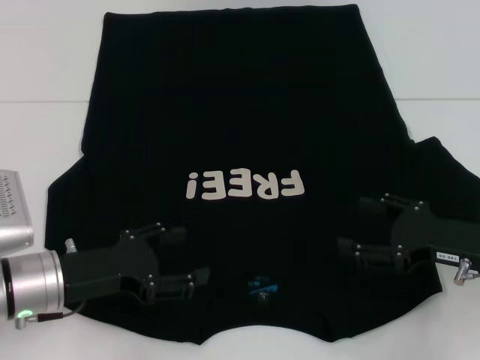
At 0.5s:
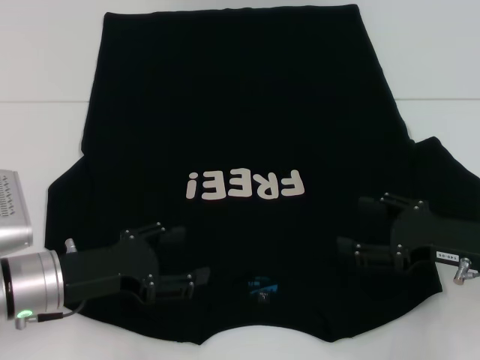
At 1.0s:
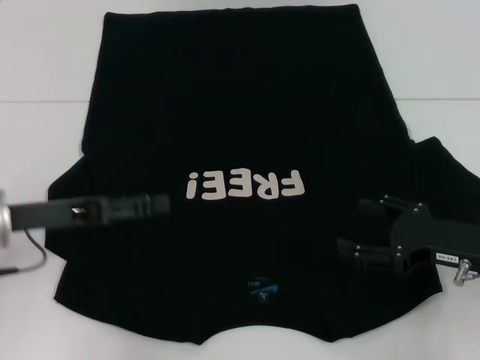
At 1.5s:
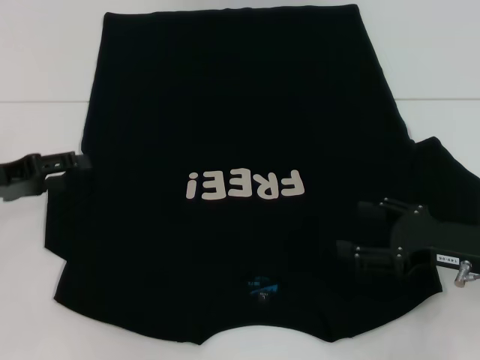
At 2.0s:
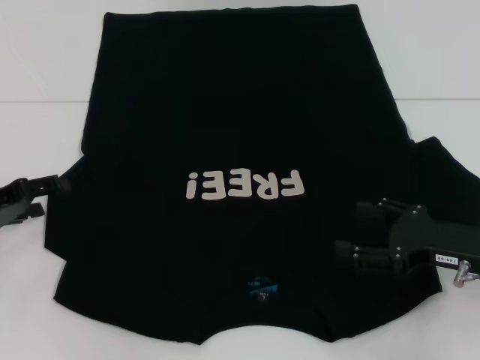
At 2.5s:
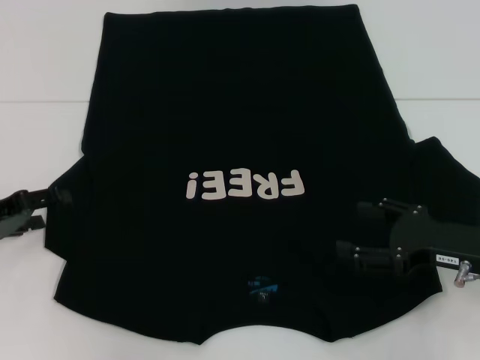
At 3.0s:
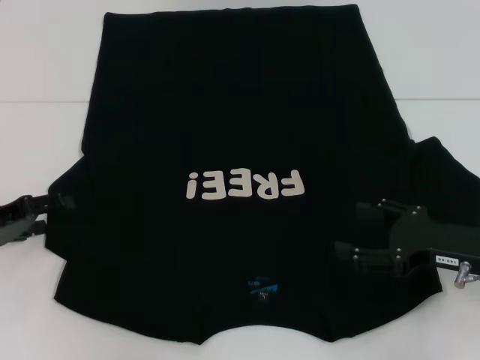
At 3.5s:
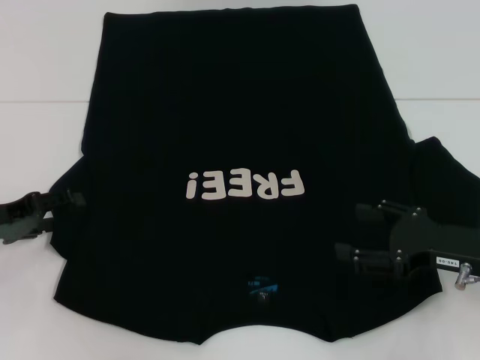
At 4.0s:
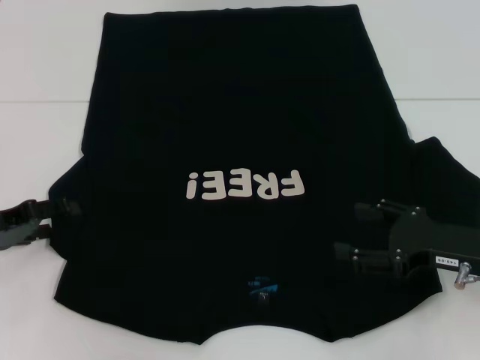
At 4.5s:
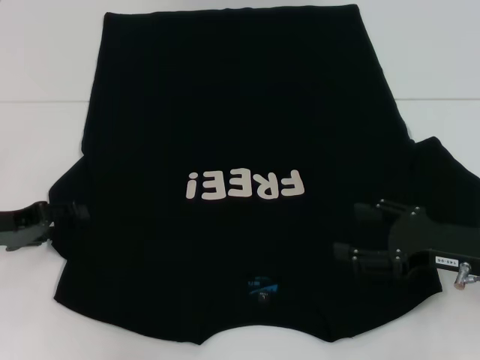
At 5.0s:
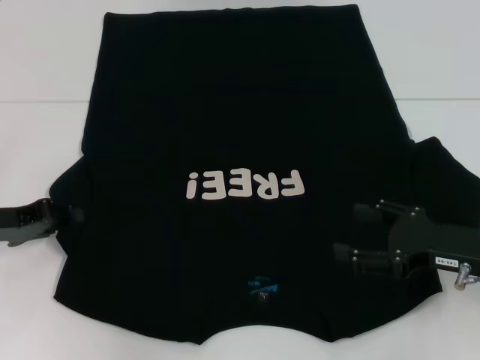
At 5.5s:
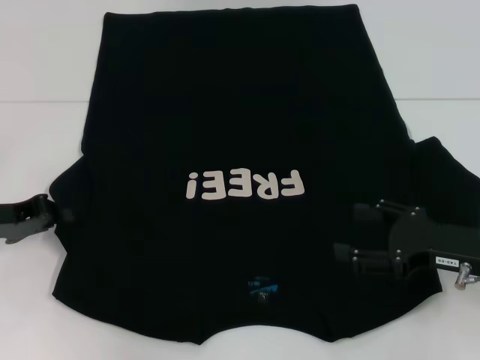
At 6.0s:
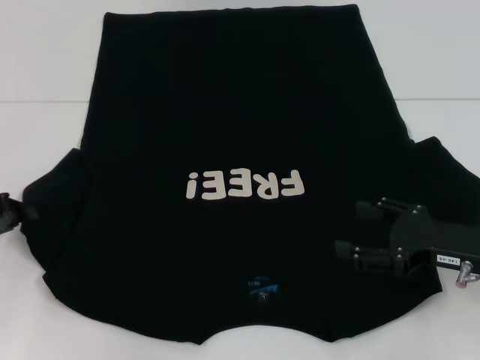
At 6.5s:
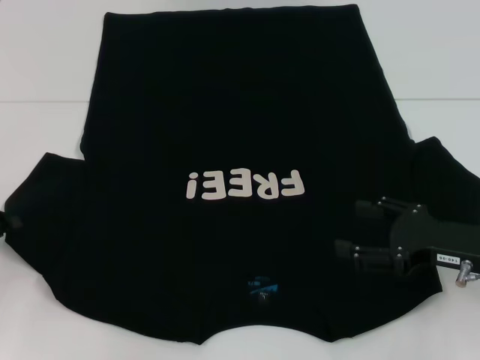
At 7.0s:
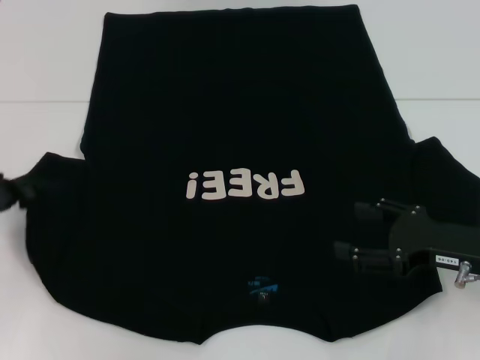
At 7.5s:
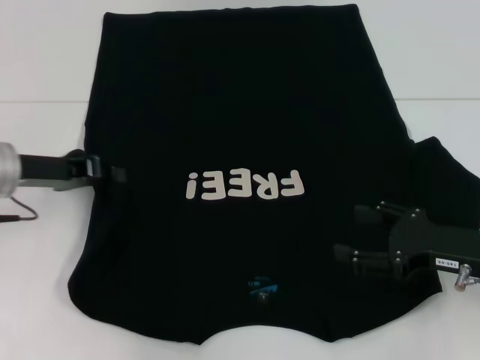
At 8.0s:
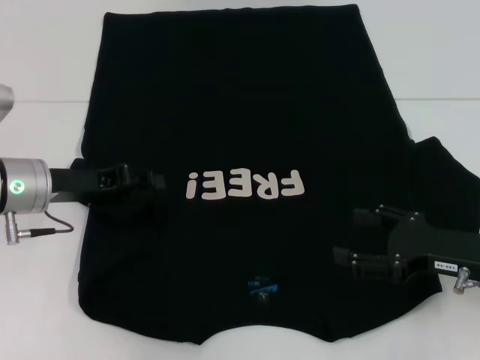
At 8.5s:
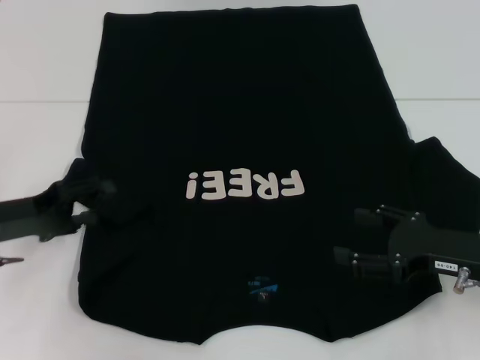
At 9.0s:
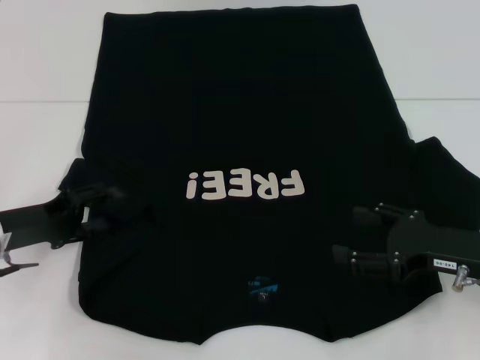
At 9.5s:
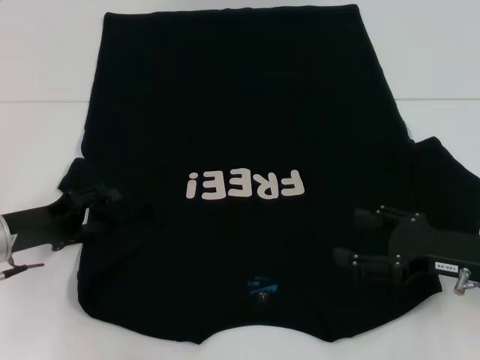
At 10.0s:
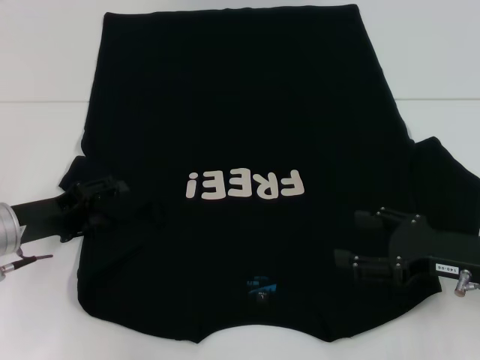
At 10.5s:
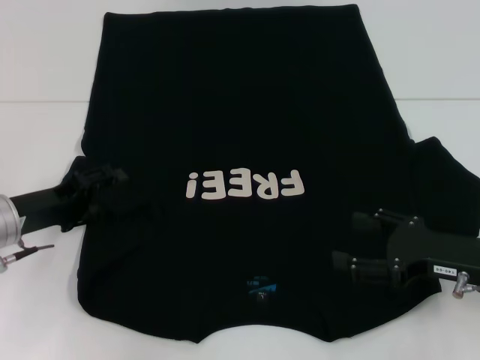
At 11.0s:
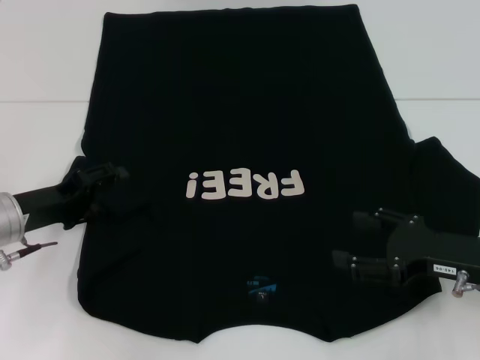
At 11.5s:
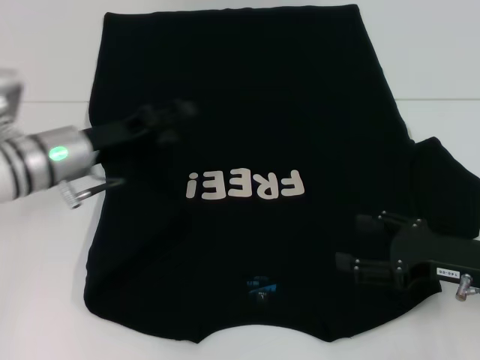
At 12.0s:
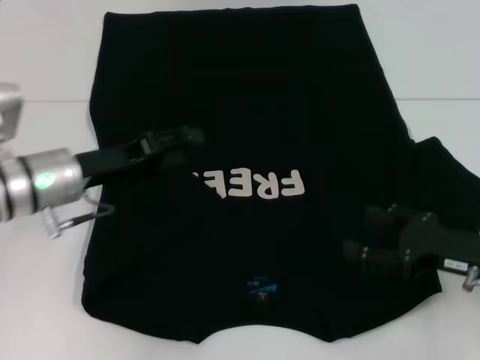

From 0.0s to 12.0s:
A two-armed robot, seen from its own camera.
Step, from 0.0s to 7.5s: Fold the bottom left sleeve with your left hand.
From 0.0s to 2.0s: The left gripper moves to the left and forward, about 15 cm.
From 2.0s to 4.0s: There are only small adjustments of the grippers.
From 4.0s to 6.0s: The left gripper closes its fingers.
From 6.0s to 8.0s: The left gripper goes some 10 cm to the right.
From 8.0s to 10.0s: The left gripper travels downward by about 5 cm, and opens its fingers.
From 10.0s to 12.0s: The left gripper moves to the right, some 5 cm.

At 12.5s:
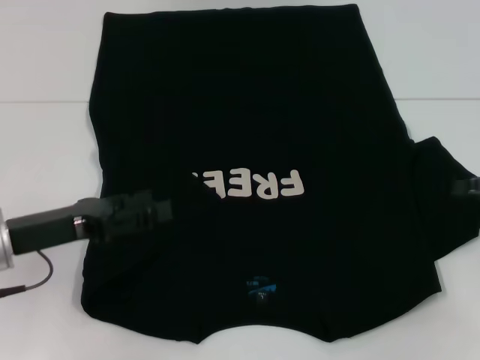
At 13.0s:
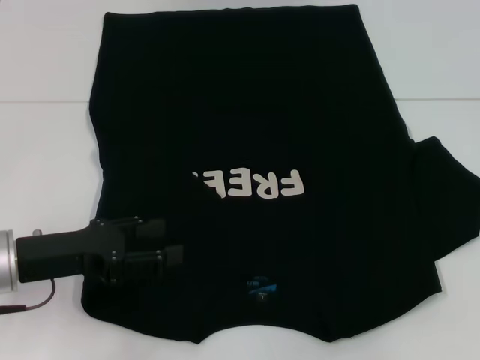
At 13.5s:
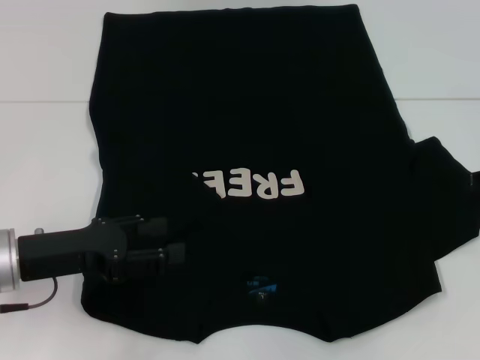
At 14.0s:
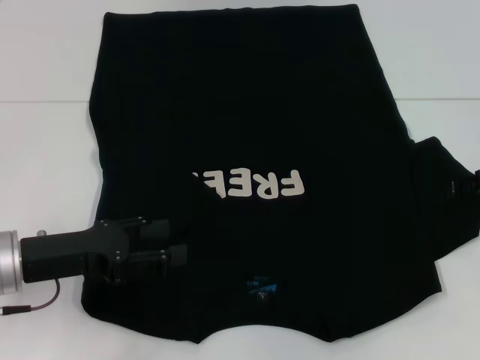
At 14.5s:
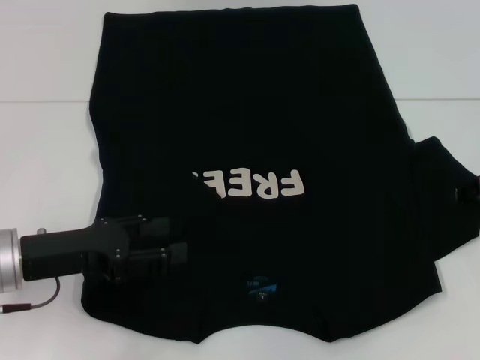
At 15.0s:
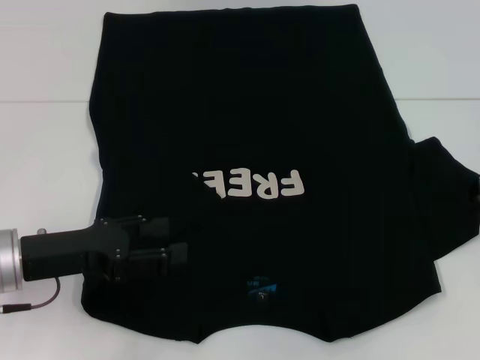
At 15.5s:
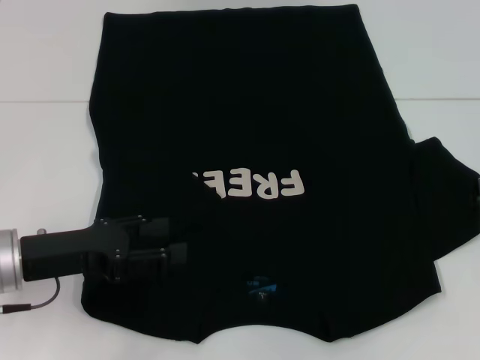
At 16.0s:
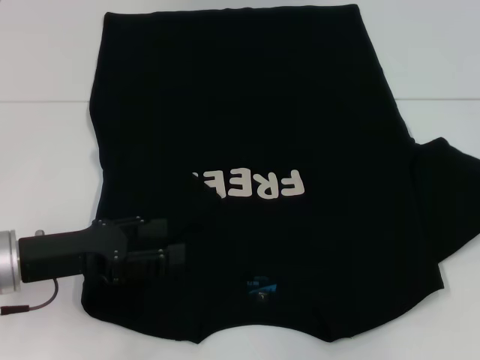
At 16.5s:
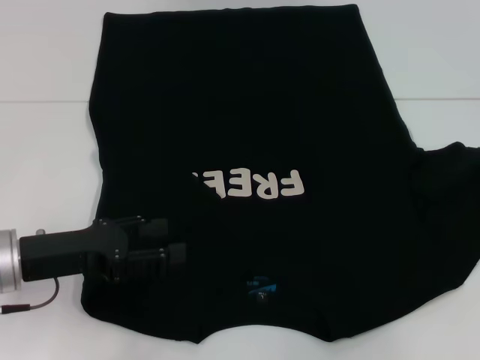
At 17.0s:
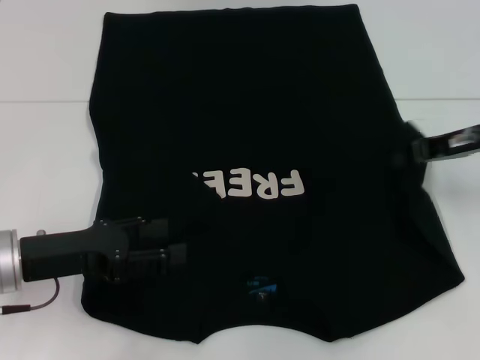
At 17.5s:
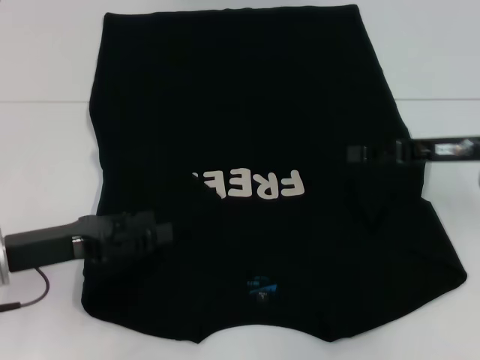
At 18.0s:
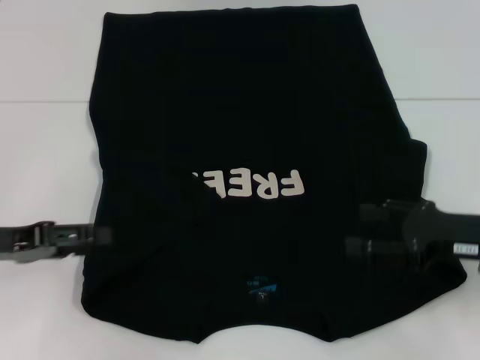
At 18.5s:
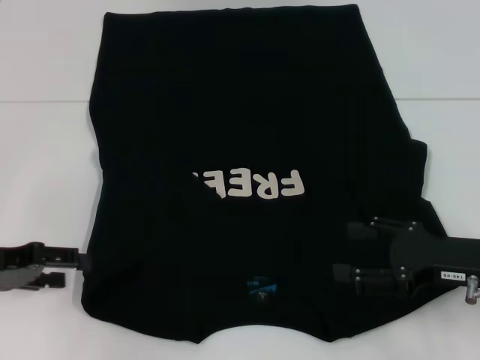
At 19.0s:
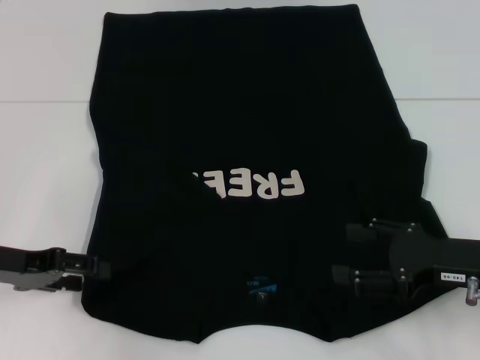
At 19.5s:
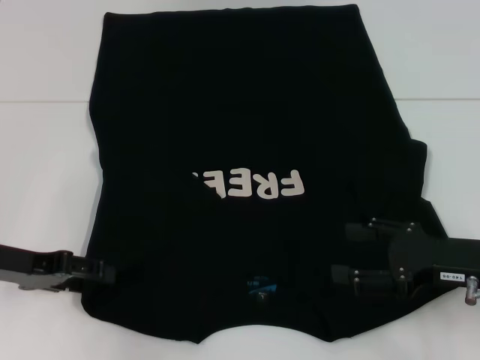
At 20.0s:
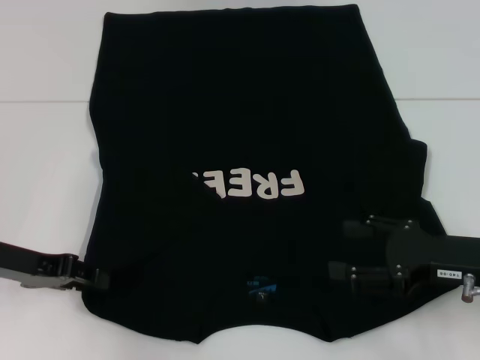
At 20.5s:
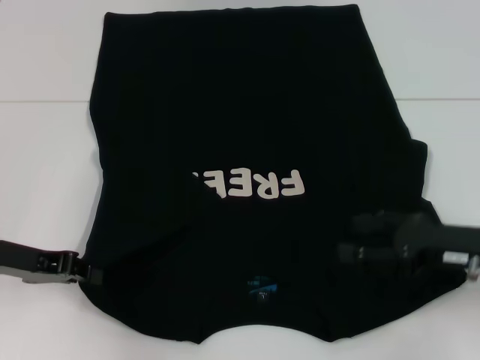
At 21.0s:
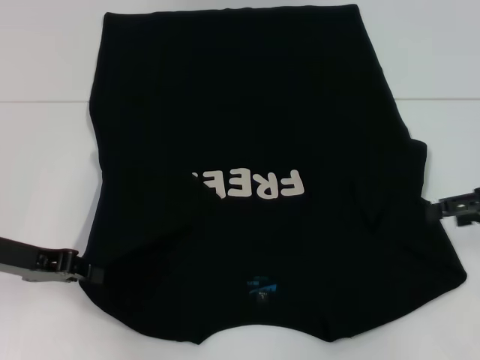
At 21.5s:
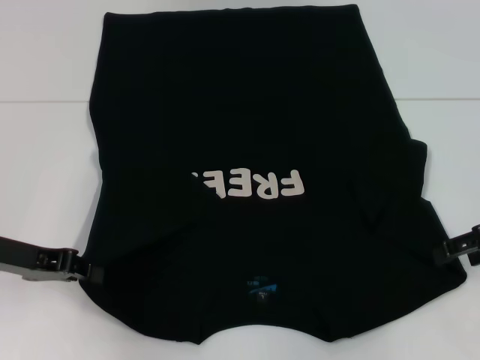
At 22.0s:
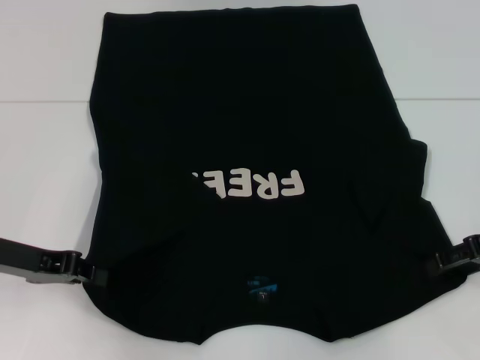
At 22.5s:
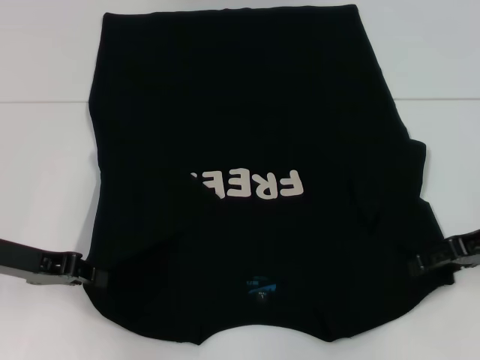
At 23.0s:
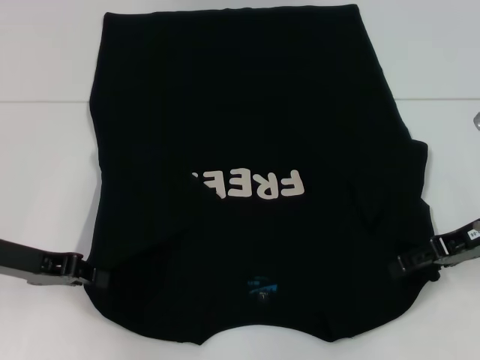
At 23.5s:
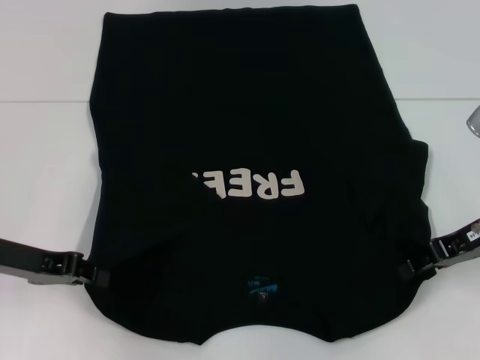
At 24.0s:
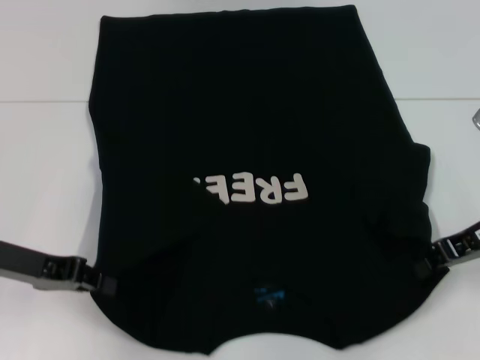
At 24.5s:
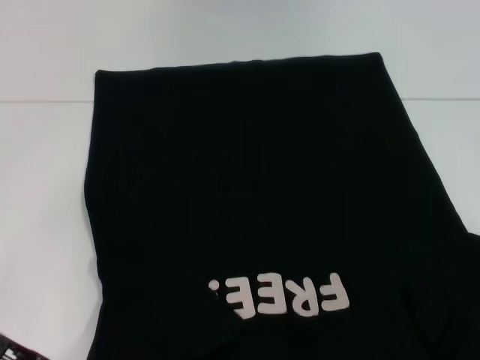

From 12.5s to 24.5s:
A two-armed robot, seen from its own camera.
Step, from 12.5s to 17.5s: Fold the bottom right sleeve with your right hand.
Step, from 18.0s to 20.0s: Grab the bottom left corner with your left hand.
Step, from 20.5s to 23.5s: Grab the bottom right corner with your right hand.
From 14.5s to 16.5s: The right gripper moves some 5 cm, and closes its fingers.
From 16.5s to 18.5s: The left gripper is displaced to the left by some 5 cm, while the right gripper moves to the left, backward and downward, approximately 15 cm, and opens.
From 18.5s to 20.5s: The left gripper closes up.
From 20.5s to 22.5s: The right gripper goes roughly 5 cm forward.
From 22.5s to 24.5s: The left gripper ends up approximately 5 cm from where it was, while the right gripper is displaced backward by about 5 cm, and closes up.

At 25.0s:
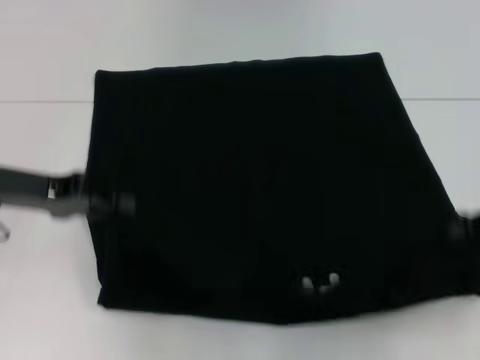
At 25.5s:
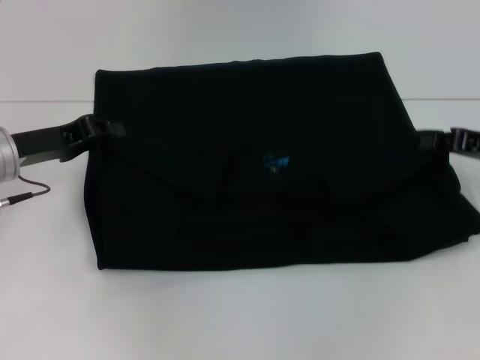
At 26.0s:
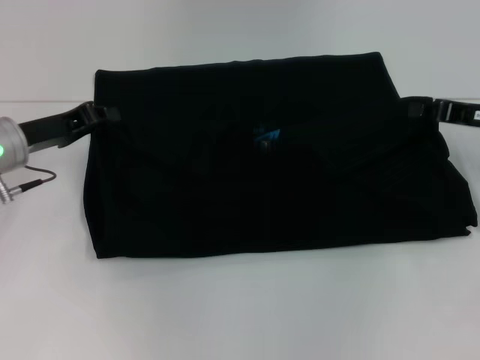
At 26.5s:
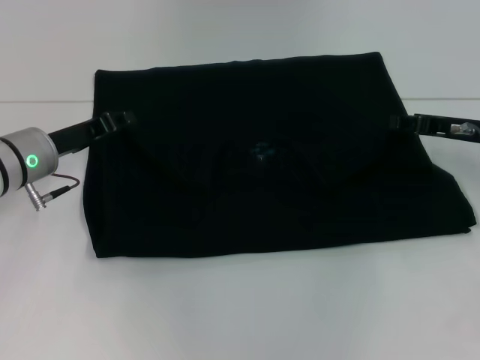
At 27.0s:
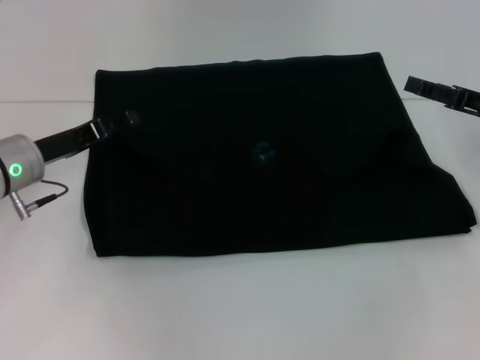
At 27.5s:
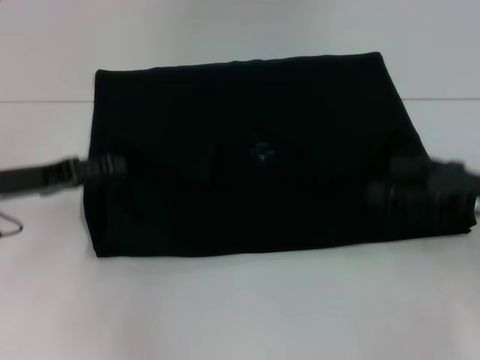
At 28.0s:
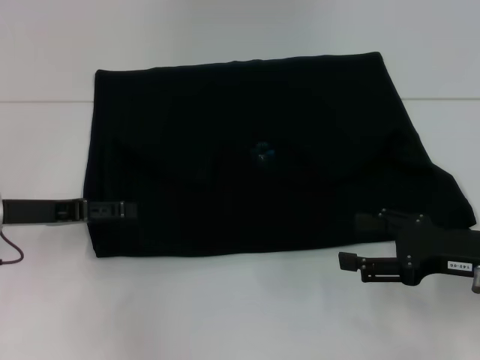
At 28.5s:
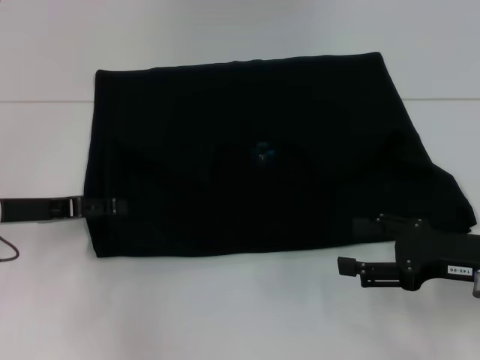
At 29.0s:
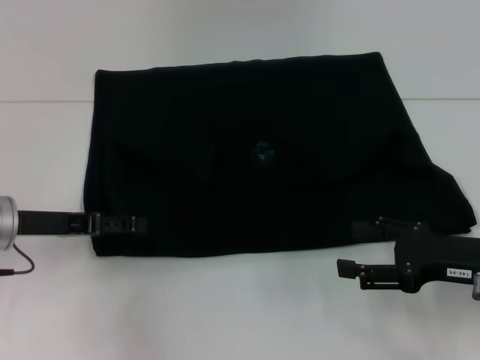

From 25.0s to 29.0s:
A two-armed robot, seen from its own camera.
Step, from 25.0s to 26.5s: Fold the clothes with your left hand.
Step, from 25.0s to 26.5s: Fold the clothes with your right hand.
From 25.0s to 27.0s: The left gripper goes approximately 5 cm downward, and opens. The right gripper opens its fingers.
From 27.0s to 29.0s: The right gripper shifts some 10 cm backward and downward, and opens.
